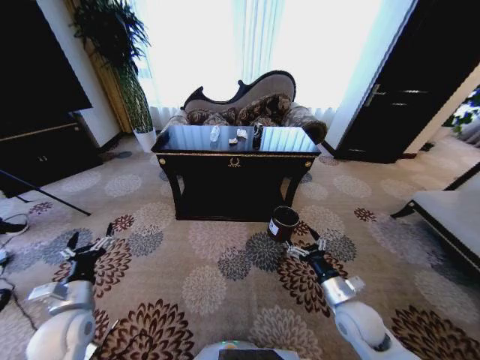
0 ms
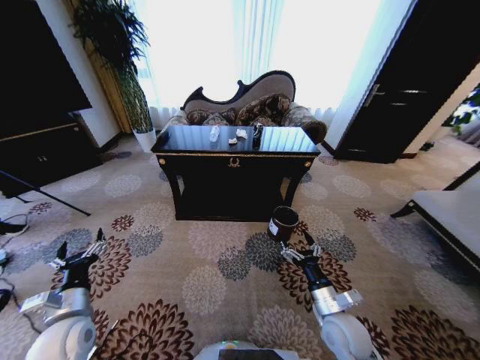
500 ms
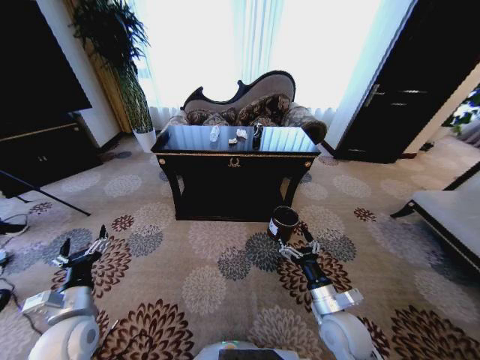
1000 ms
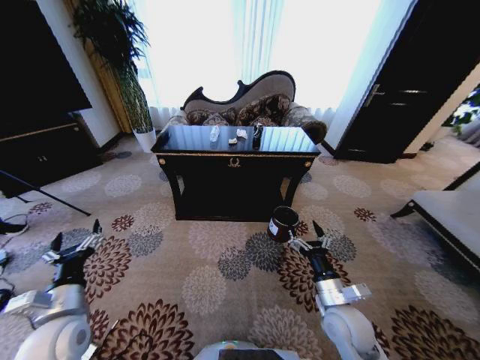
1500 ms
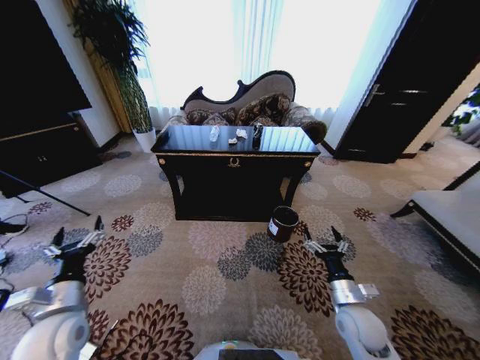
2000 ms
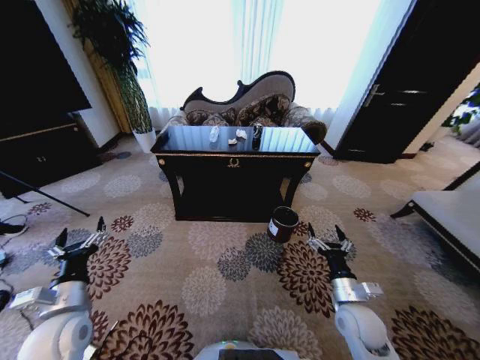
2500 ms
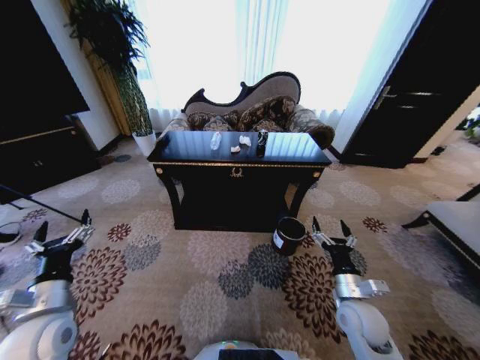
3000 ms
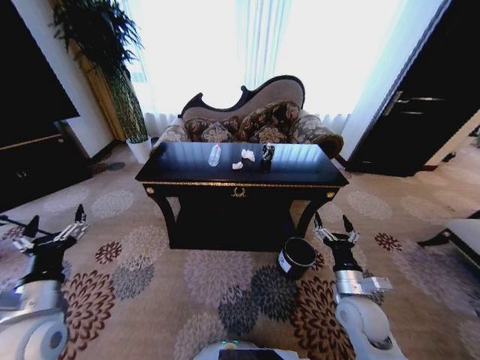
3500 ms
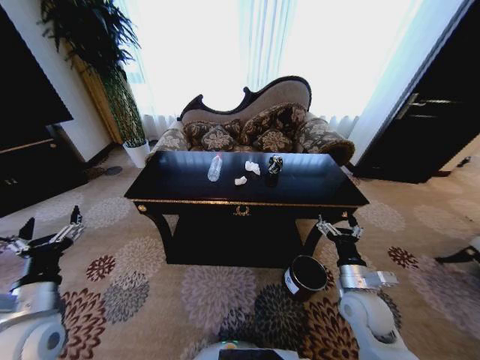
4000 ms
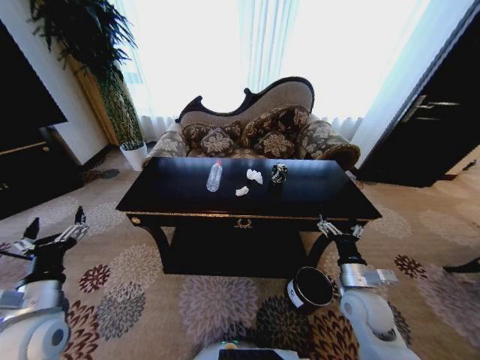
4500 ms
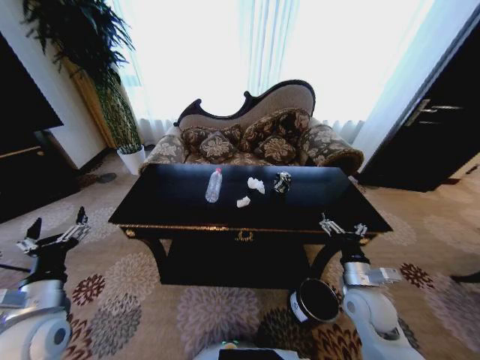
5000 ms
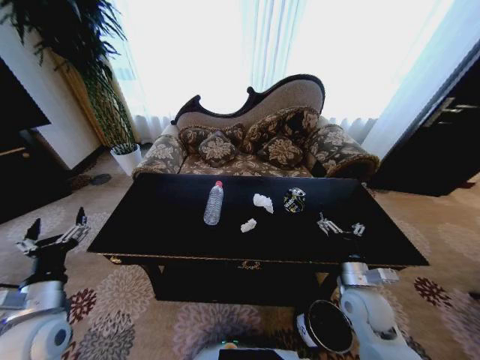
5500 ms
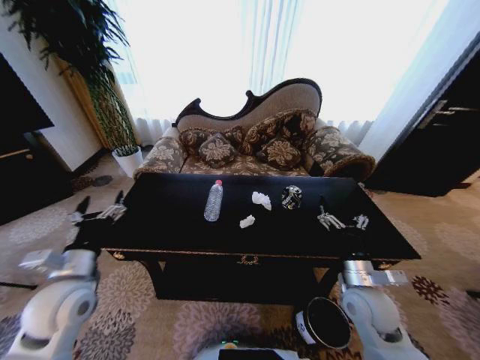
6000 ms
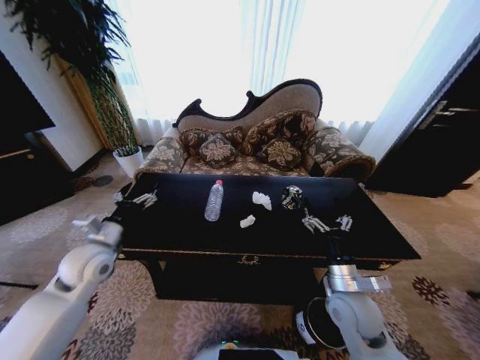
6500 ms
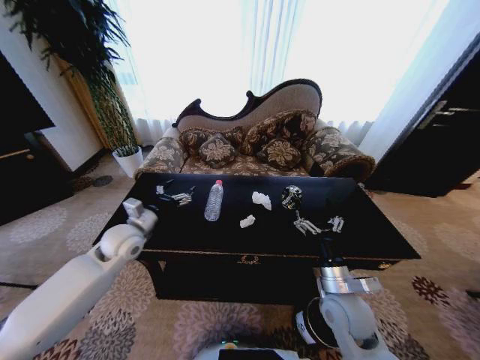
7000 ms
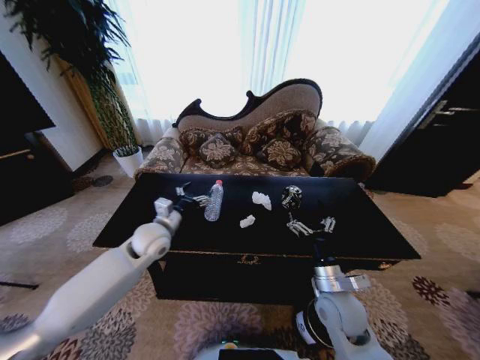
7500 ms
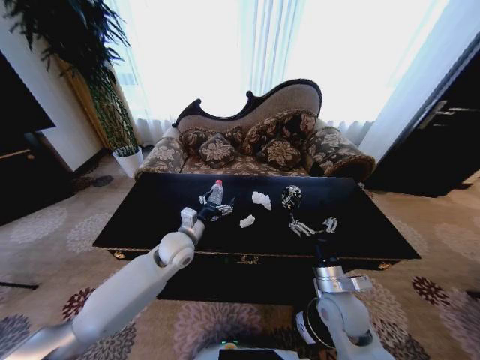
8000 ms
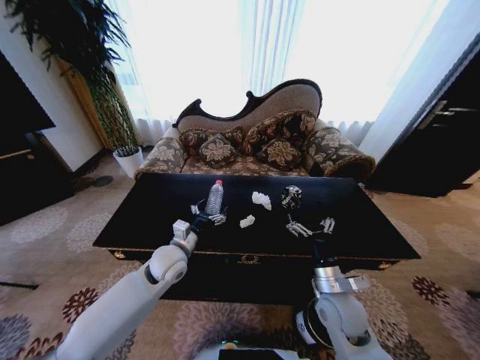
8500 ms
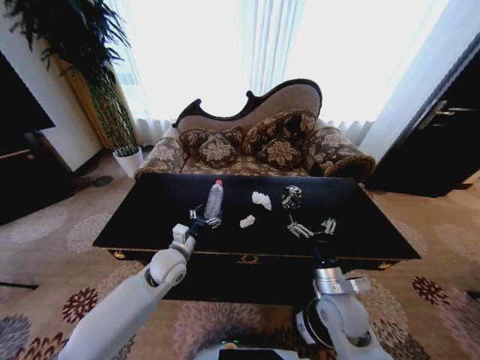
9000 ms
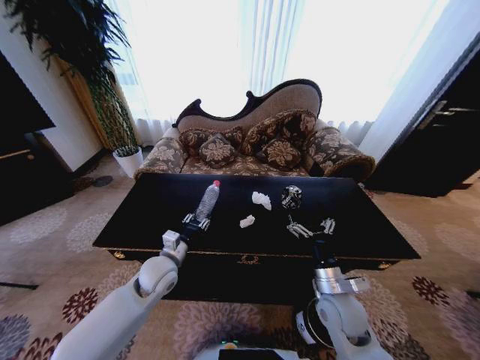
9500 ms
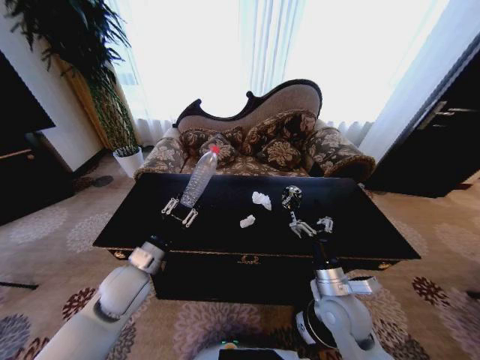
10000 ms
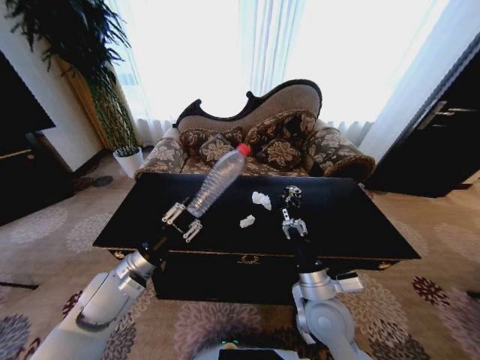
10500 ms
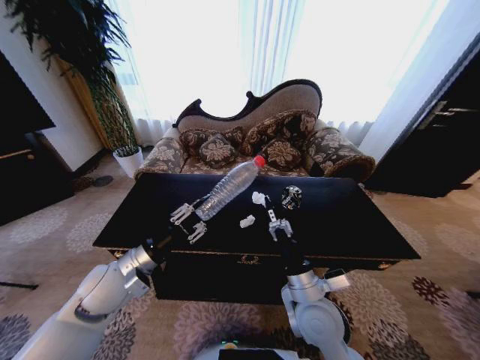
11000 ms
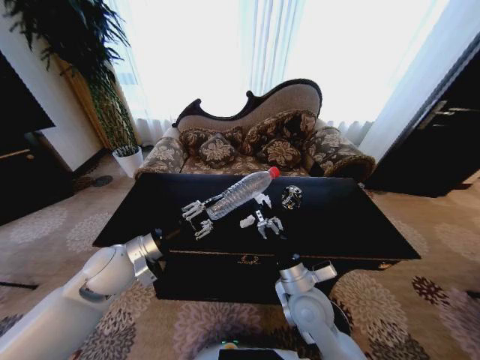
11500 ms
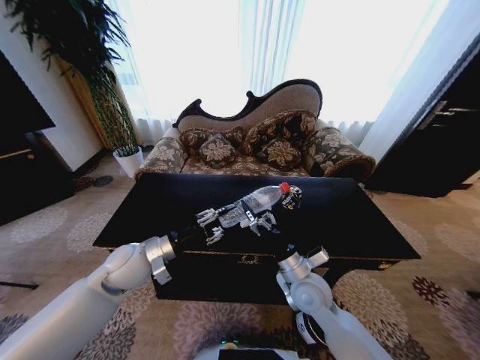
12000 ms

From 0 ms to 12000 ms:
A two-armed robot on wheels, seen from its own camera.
Task of the whole recording: Move to the front of the table and place the trash on the table into the trash bin.
From 2000 ms to 4000 ms: The right gripper moves some 5 cm.
From 4000 ms to 6000 ms: The left gripper moves forward, roughly 5 cm.
From 6000 ms to 8000 ms: The right gripper is displaced to the left by some 5 cm. Meanwhile the left gripper shifts about 25 cm to the right and forward.
From 8000 ms to 10000 ms: The left gripper shifts about 15 cm backward and to the left, and closes up.
From 10000 ms to 12000 ms: The right gripper moves to the left, some 5 cm.

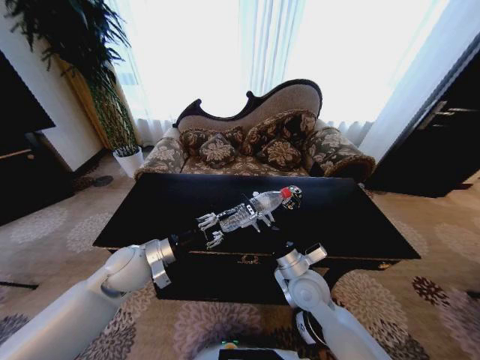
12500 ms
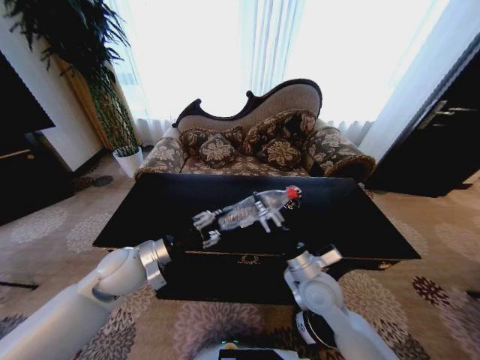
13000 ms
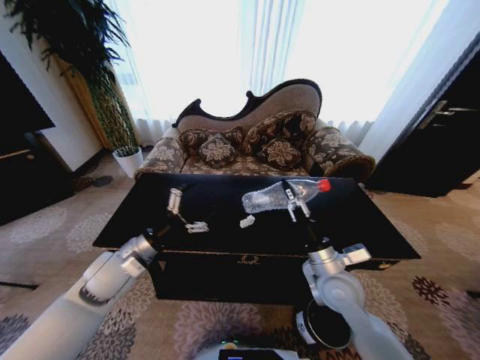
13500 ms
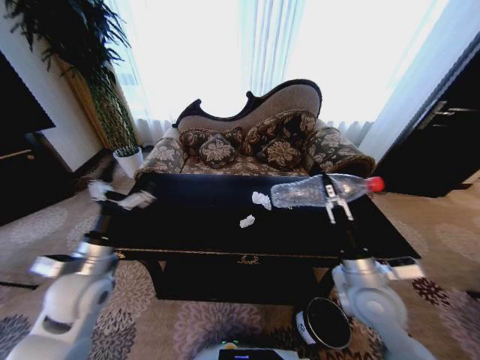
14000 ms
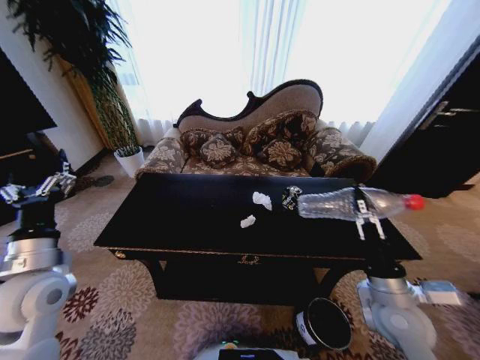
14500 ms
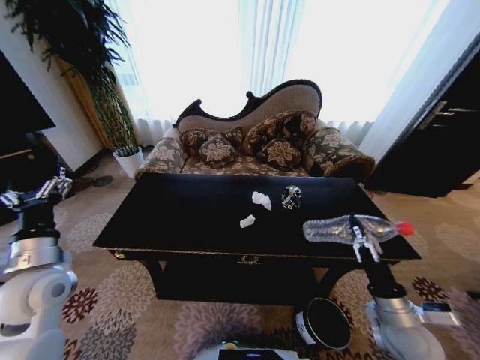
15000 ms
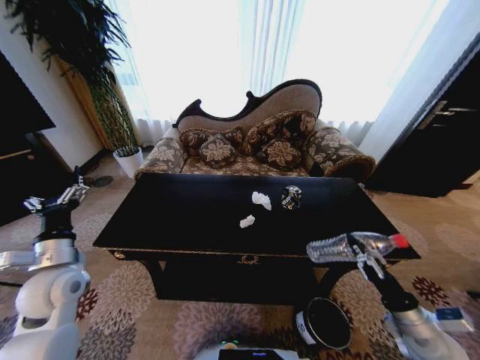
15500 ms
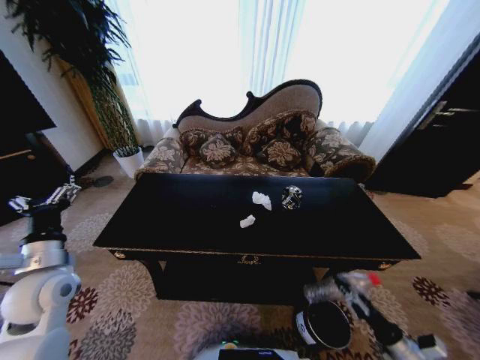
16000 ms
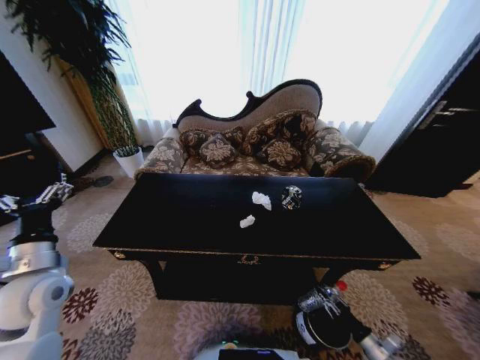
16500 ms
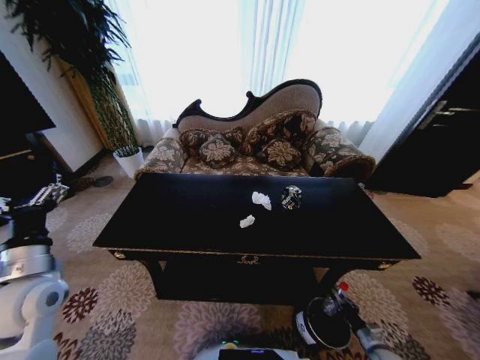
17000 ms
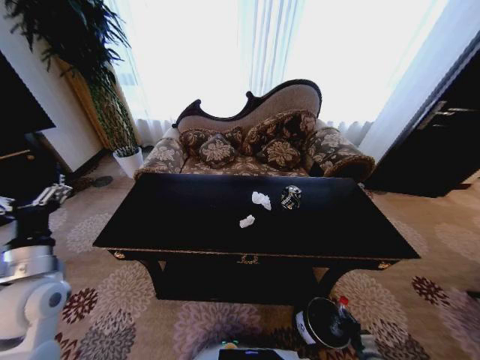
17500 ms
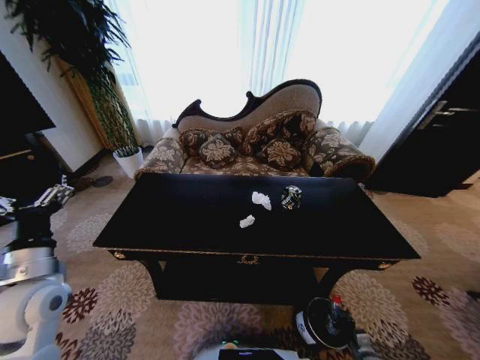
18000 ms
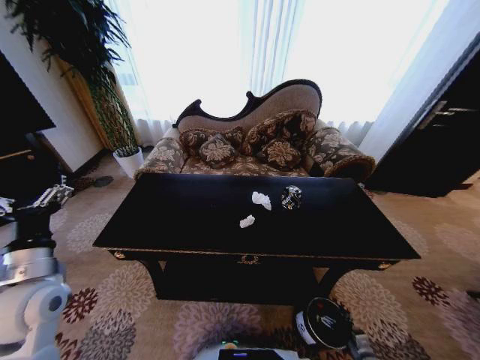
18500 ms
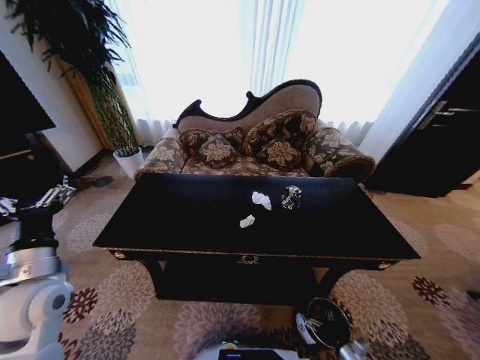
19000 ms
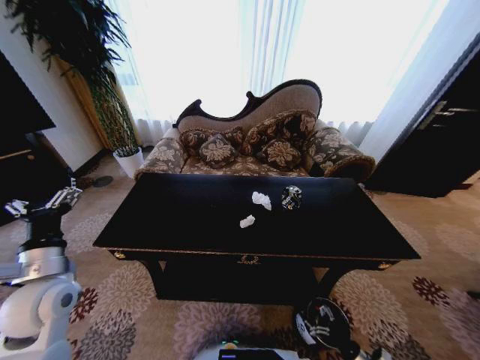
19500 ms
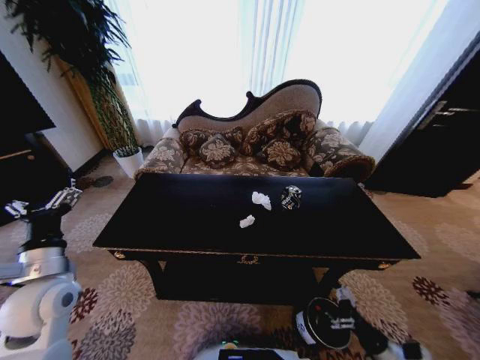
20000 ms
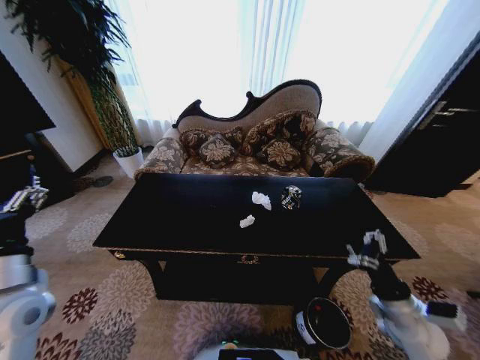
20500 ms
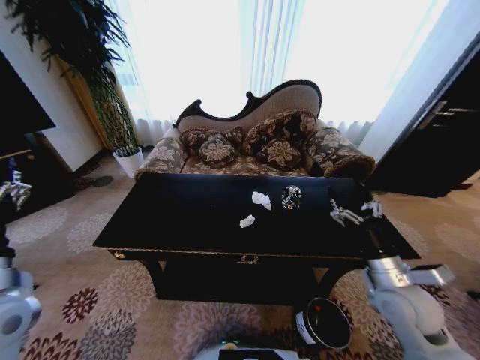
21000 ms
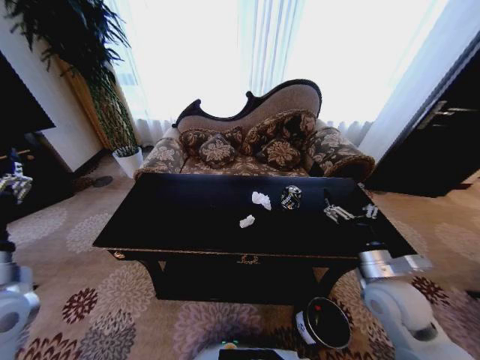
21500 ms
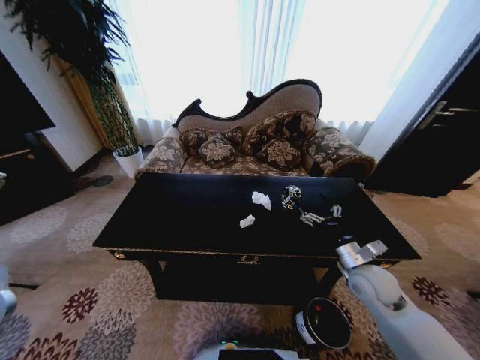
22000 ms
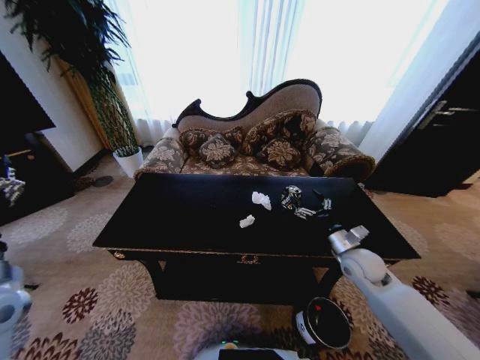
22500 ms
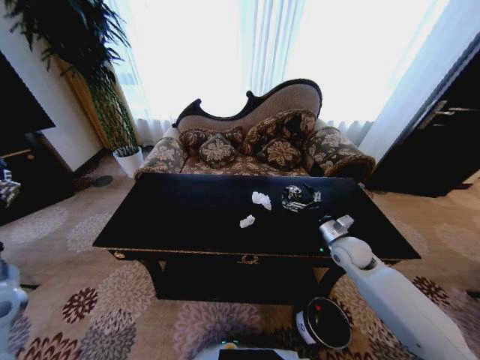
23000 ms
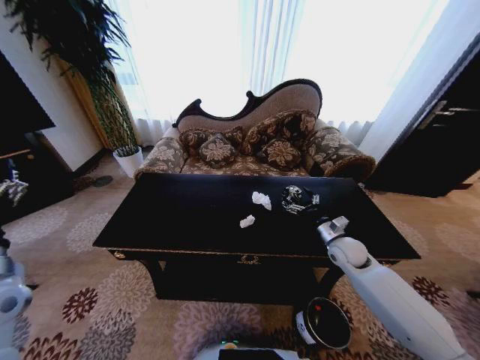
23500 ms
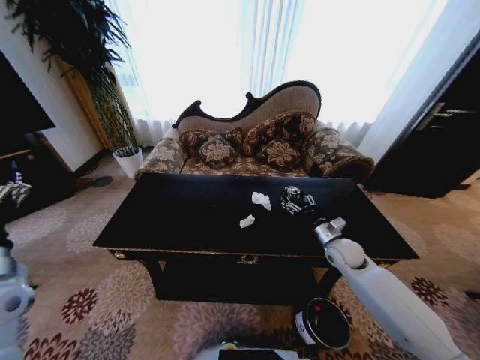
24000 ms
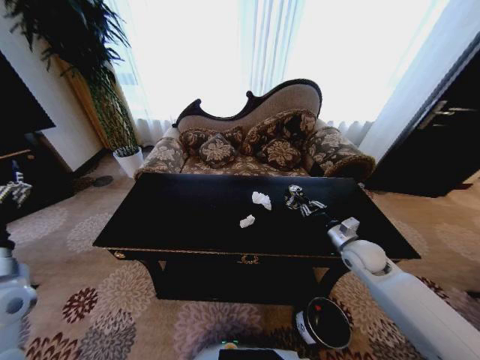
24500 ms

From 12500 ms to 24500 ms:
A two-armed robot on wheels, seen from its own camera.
Task of the whole recording: Move to the front of the table and place the trash on the table into the trash bin.
From 12500 ms to 14500 ms: The right gripper moves to the right and backward, roughly 20 cm, and closes its fingers, while the left gripper travels to the left and backward by approximately 15 cm, and opens.
From 14500 ms to 16500 ms: The right gripper heads downward and to the right, covering about 35 cm.
From 16500 ms to 18500 ms: The right gripper travels downward by some 5 cm, and opens.
From 18500 ms to 20500 ms: The right gripper is displaced upward by approximately 30 cm.
From 20500 ms to 22500 ms: The right gripper shifts approximately 15 cm forward.
From 22500 ms to 24500 ms: The right gripper closes up.

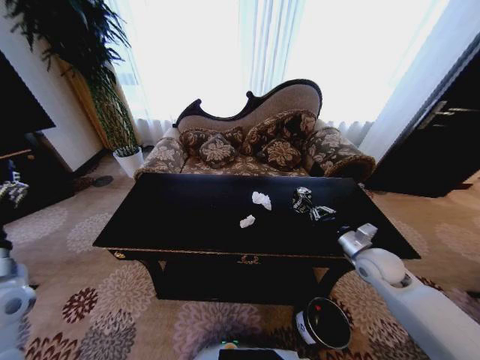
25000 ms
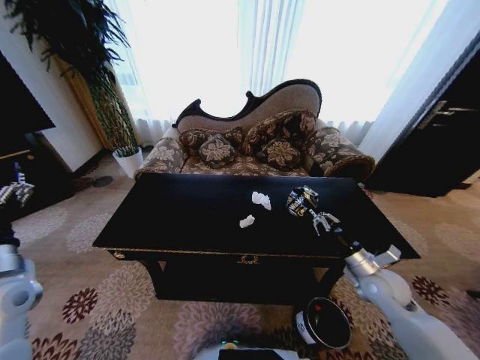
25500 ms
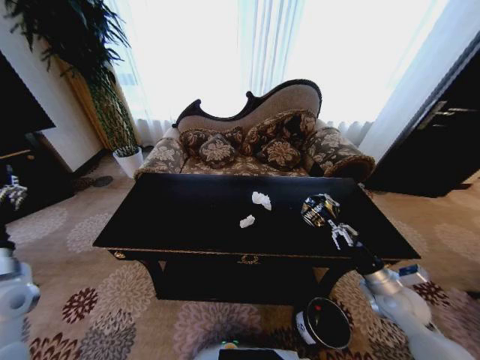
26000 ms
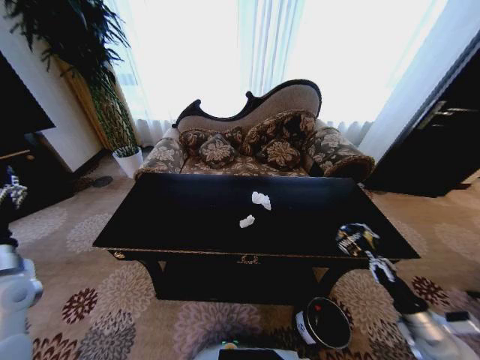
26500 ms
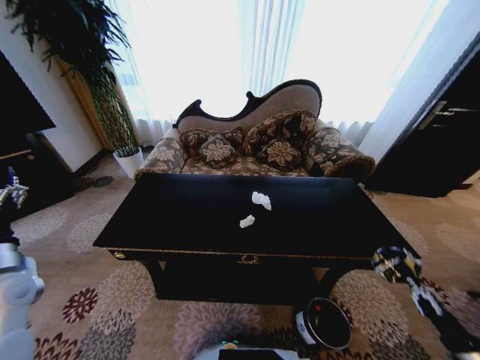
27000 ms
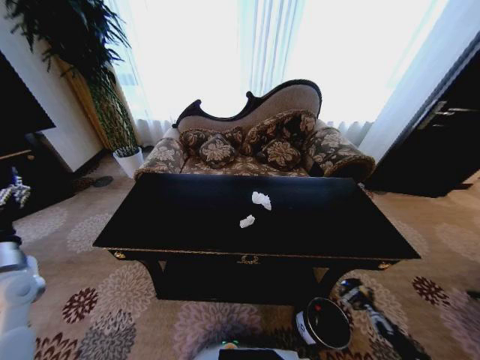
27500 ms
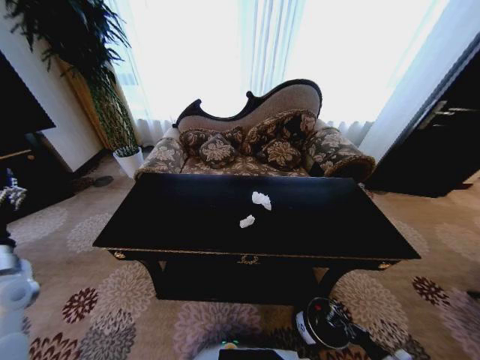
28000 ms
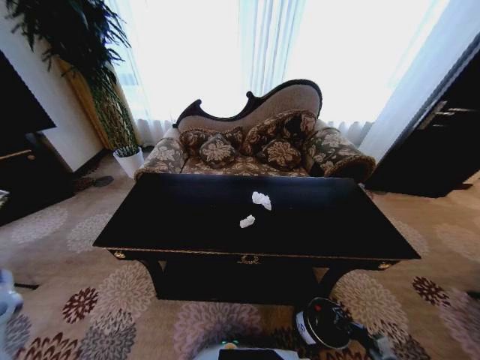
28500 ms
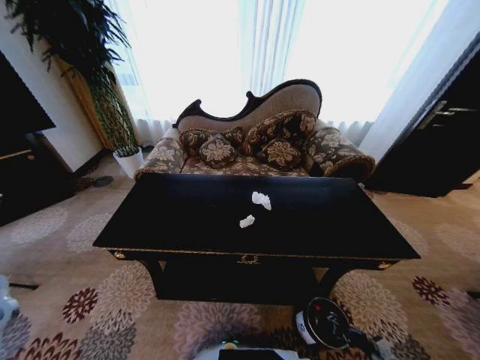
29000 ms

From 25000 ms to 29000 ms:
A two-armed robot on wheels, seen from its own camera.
Task of the whole recording: Move to the front of the table and place the trash on the table into the trash bin.
From 25000 ms to 27000 ms: The right gripper is displaced backward, to the right and downward by roughly 35 cm, while the left gripper shifts by approximately 5 cm.
From 27000 ms to 29000 ms: The right gripper is displaced downward by about 20 cm; the left gripper moves some 5 cm.
